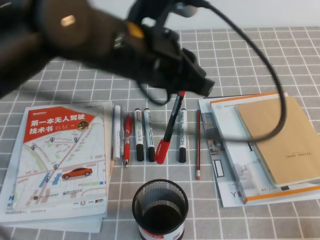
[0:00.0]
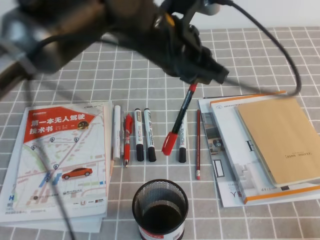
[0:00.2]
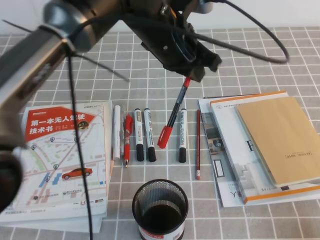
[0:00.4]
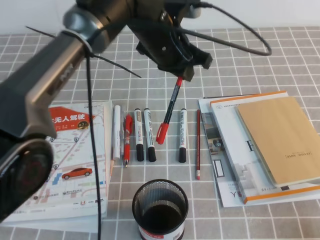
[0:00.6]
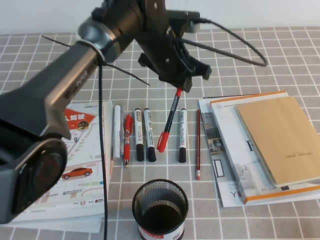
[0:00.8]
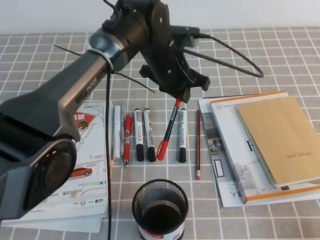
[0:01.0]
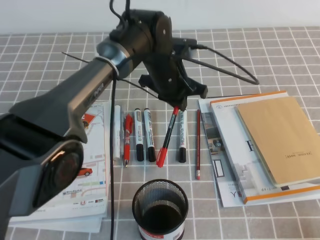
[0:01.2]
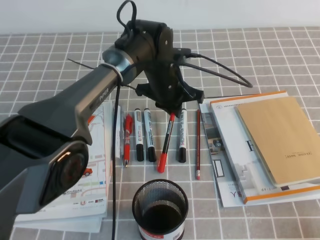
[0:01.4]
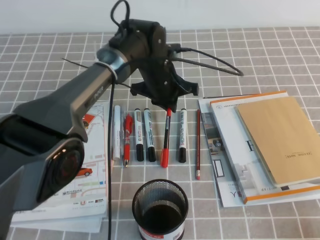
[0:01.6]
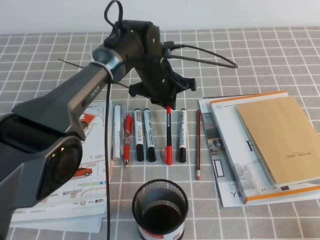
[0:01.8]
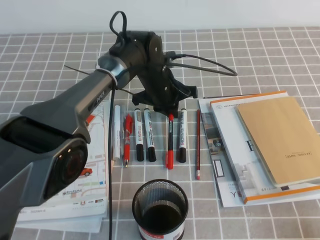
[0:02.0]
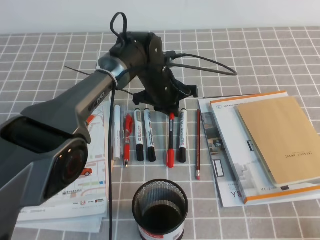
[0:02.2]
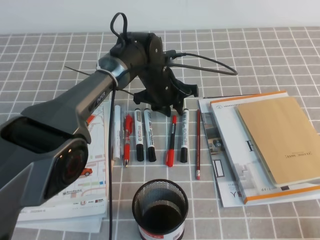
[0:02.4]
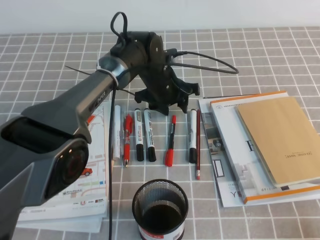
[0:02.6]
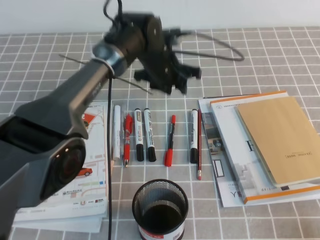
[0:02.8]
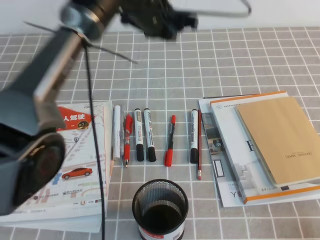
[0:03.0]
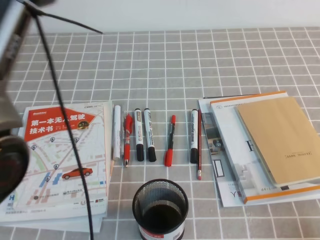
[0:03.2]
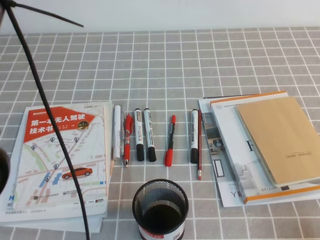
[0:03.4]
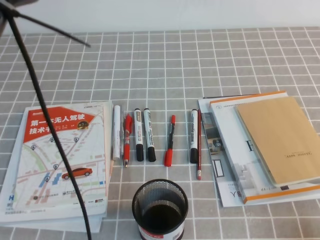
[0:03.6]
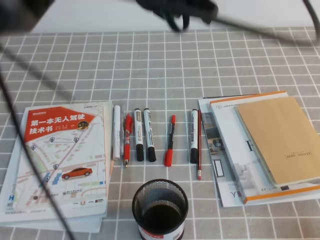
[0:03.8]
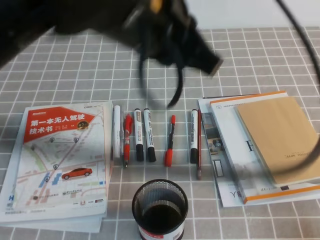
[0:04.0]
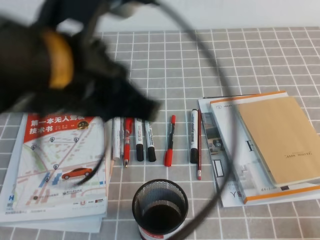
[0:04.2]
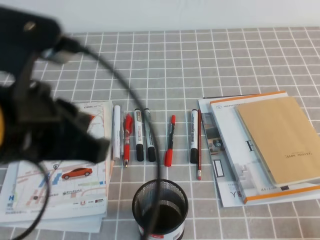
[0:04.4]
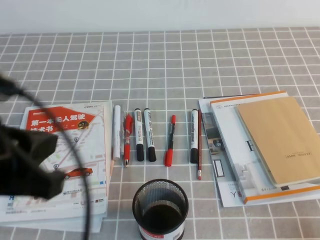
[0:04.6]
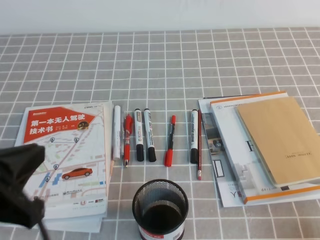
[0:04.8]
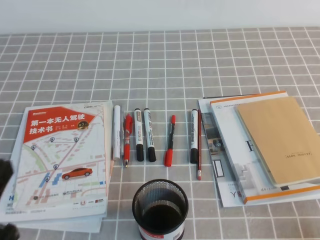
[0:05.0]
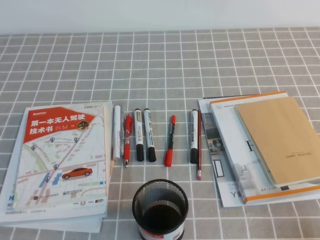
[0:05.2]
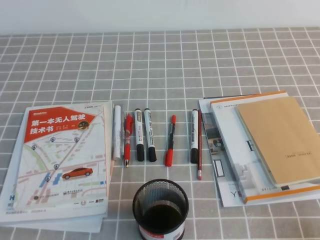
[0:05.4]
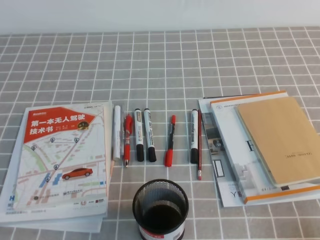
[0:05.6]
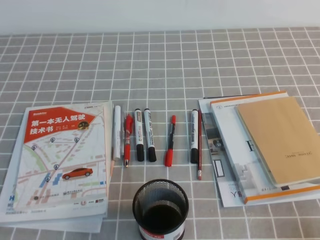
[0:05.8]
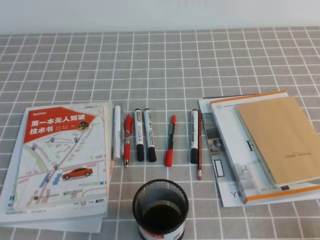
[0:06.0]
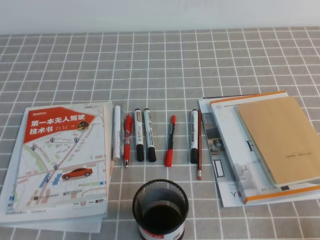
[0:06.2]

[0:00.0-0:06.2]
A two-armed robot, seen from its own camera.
Step, 0:00.0 to 0:06.2: Pick up the pen from the pen holder.
0:00.0 to 0:01.6: The left gripper is displaced forward and downward by roughly 25 cm.
0:01.6 to 0:03.2: The left gripper shifts about 20 cm upward, and opens, then closes again.
0:03.2 to 0:04.6: The left gripper travels backward and to the left by roughly 30 cm.
0:04.6 to 0:06.2: The left gripper travels downward and to the left by roughly 25 cm.
